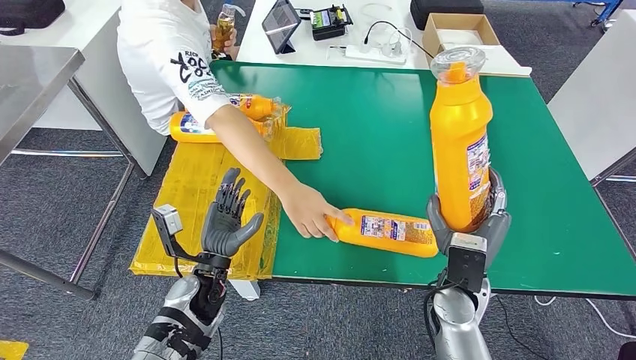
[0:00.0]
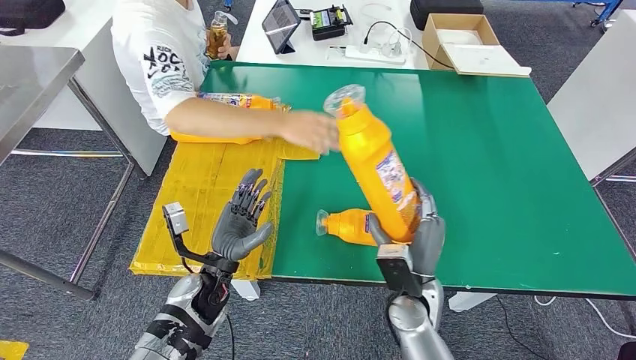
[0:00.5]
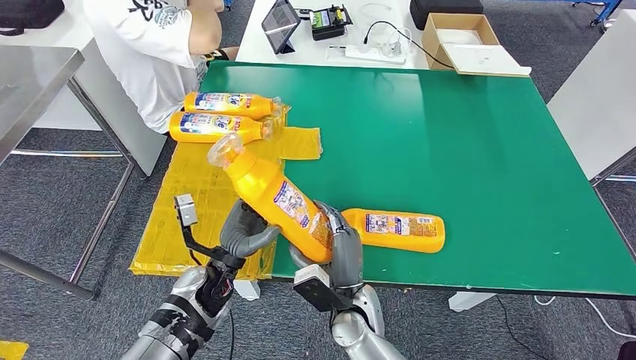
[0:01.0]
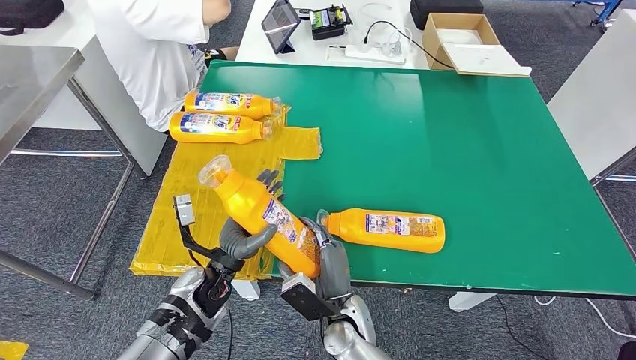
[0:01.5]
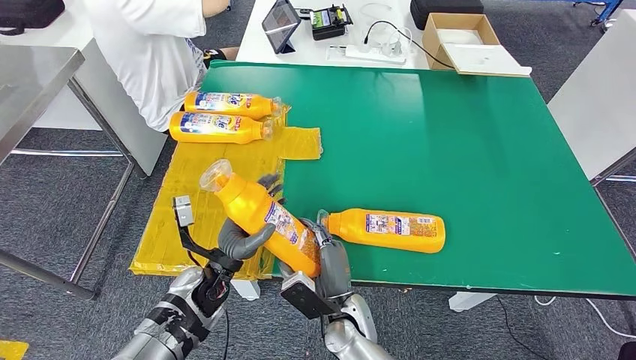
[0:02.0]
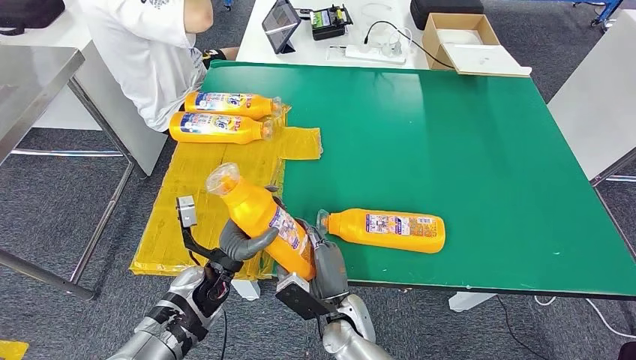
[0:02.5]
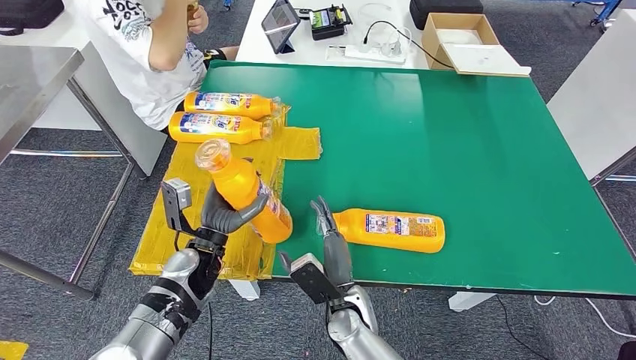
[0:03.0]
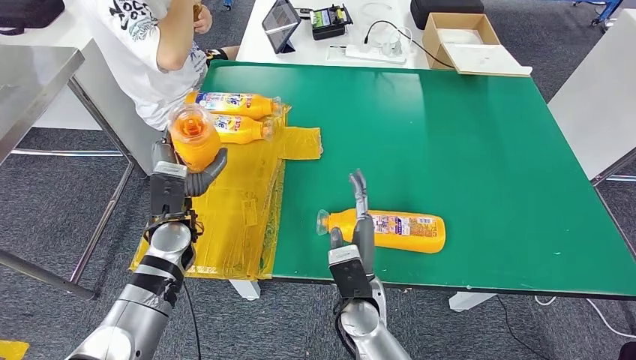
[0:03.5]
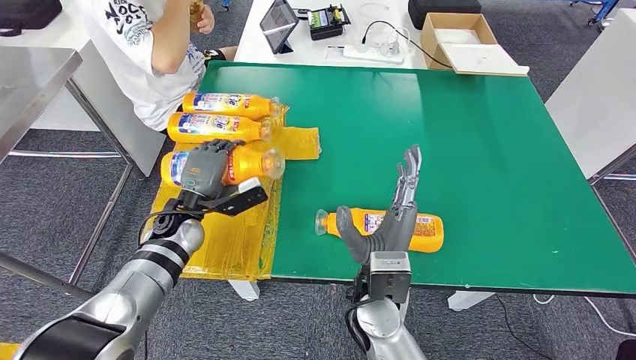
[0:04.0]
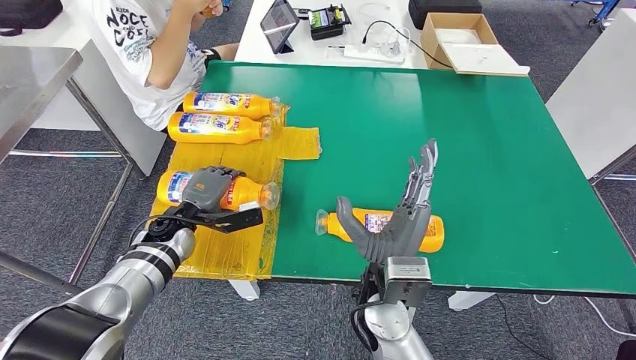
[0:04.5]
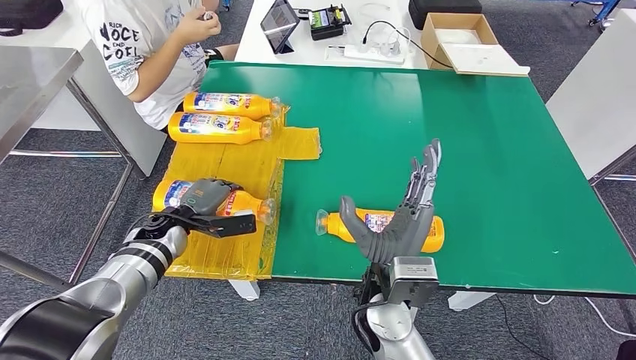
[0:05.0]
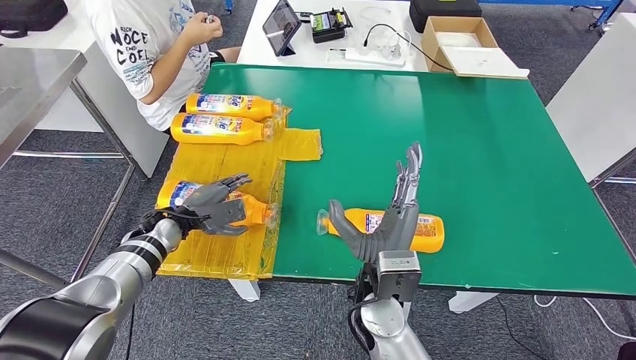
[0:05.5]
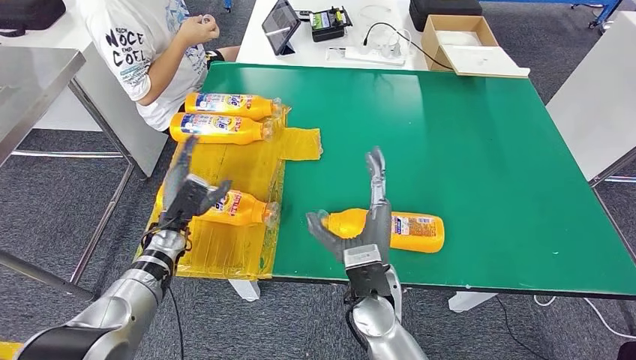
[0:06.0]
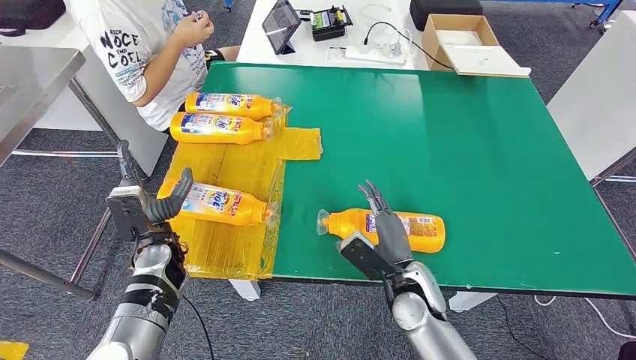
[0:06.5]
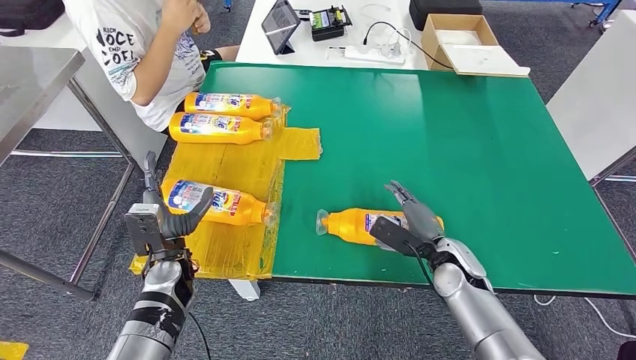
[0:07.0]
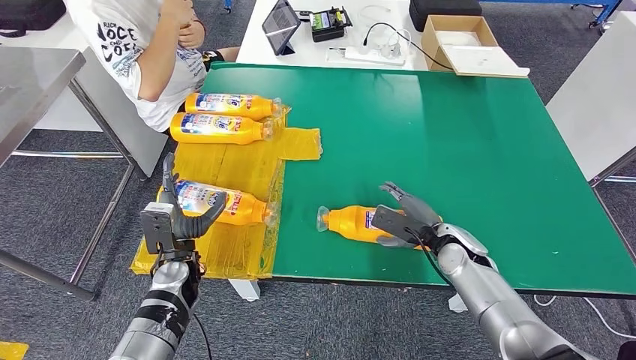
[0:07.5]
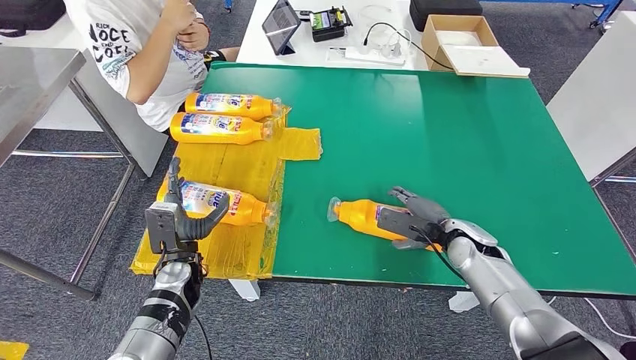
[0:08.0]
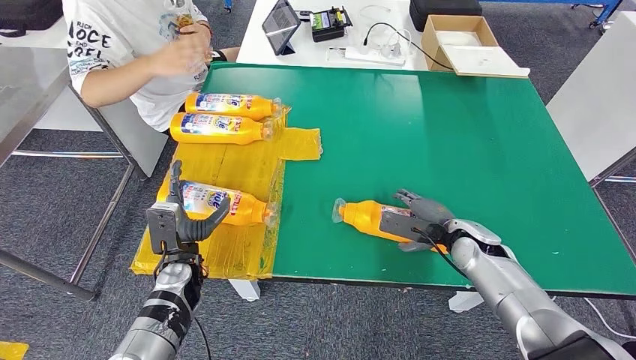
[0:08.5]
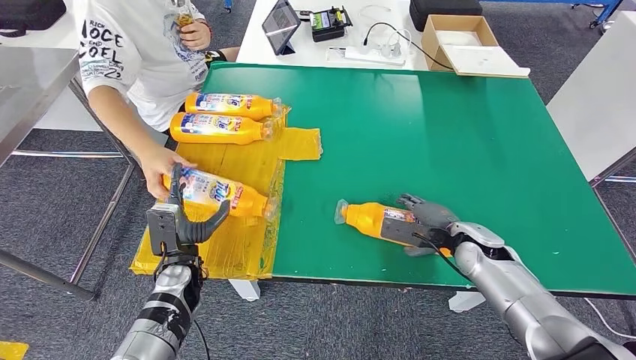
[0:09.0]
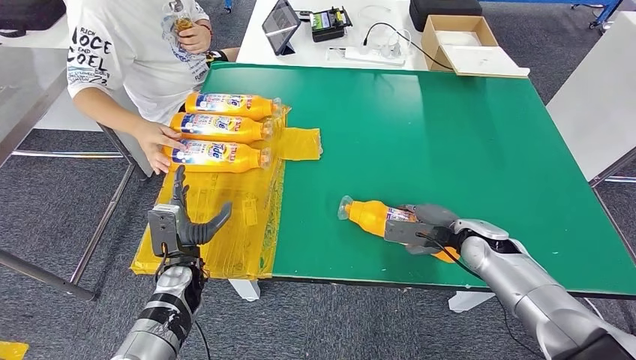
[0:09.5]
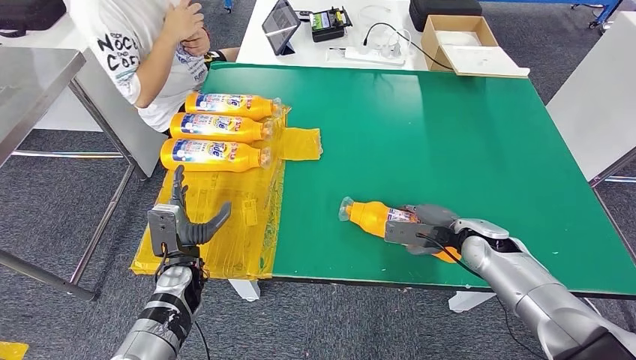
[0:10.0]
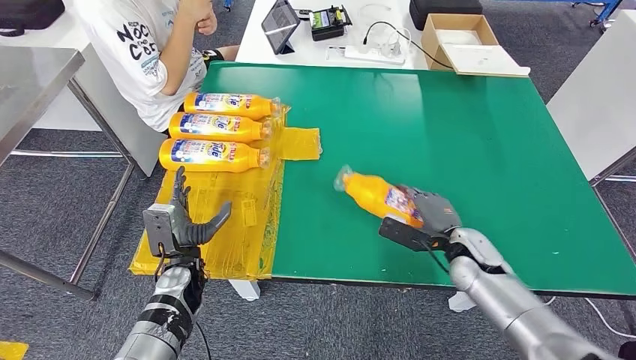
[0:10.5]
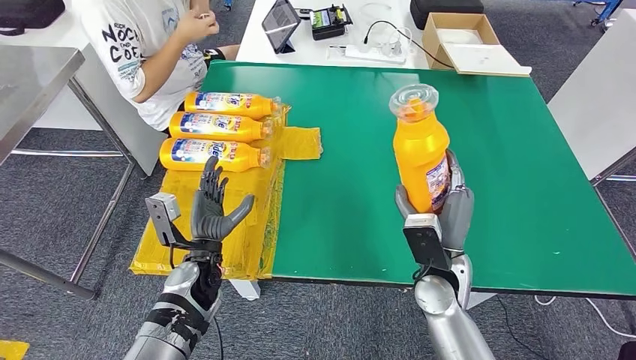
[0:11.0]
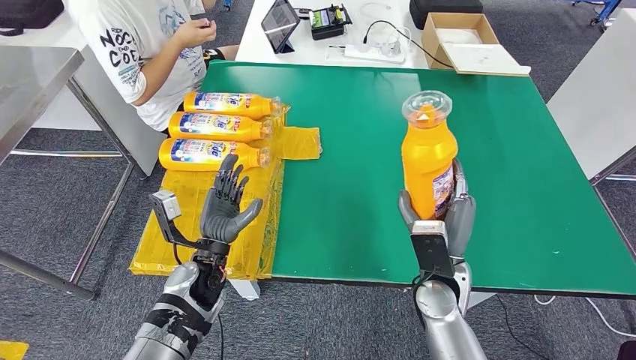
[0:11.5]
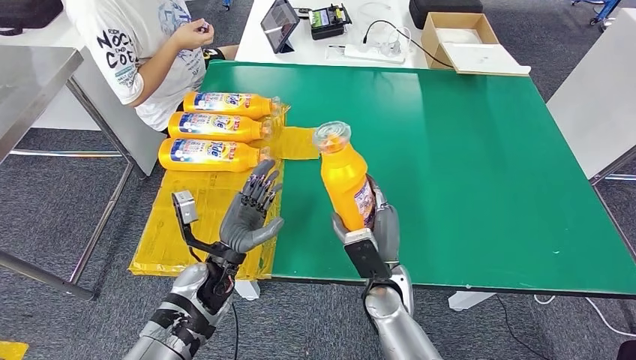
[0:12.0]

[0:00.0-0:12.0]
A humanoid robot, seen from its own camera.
Step, 0:01.0 to 0:05.5: Flip the fast-moving consumer goods bottle to the front side.
Step, 0:06.5 to 0:11.0: Pick up the fast-moving consumer goods bottle from the table.
0:04.0 to 0:06.0: The left hand moves downward, about 5 cm.
0:06.0 to 0:08.0: The right hand heads to the right and forward, covering some 25 cm. The left hand goes about 10 cm backward and to the right.
0:08.0 to 0:10.0: The hands stay close to where they were, moving slightly.

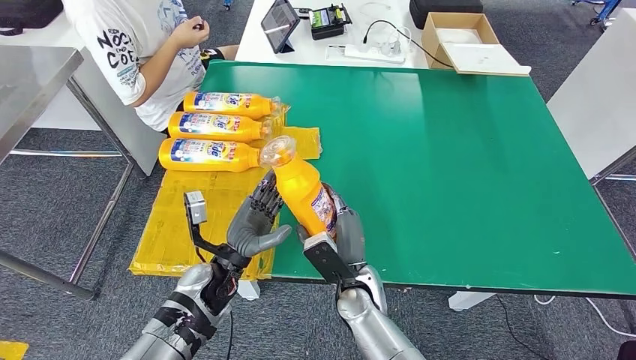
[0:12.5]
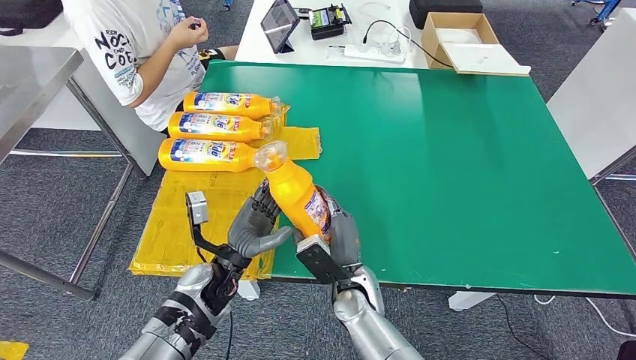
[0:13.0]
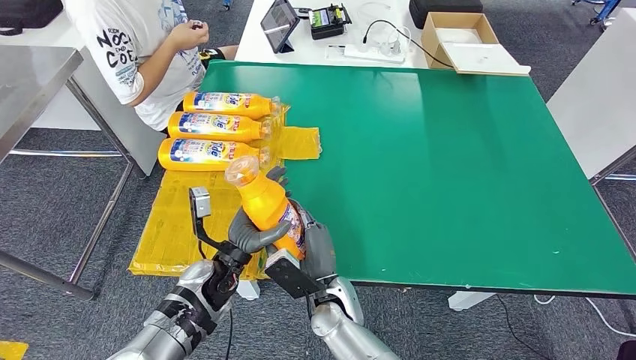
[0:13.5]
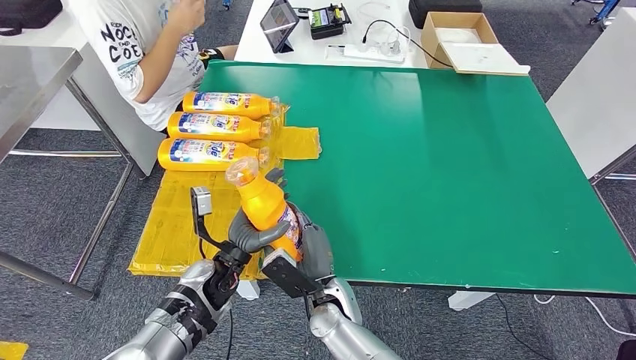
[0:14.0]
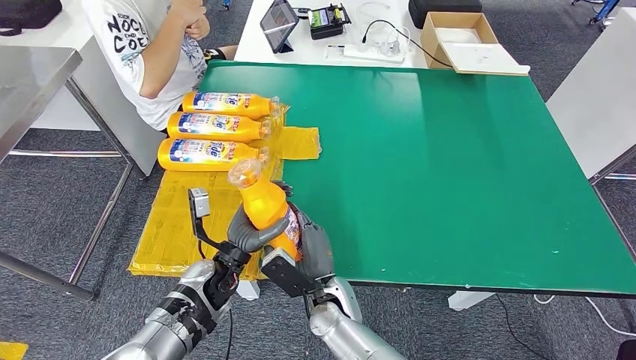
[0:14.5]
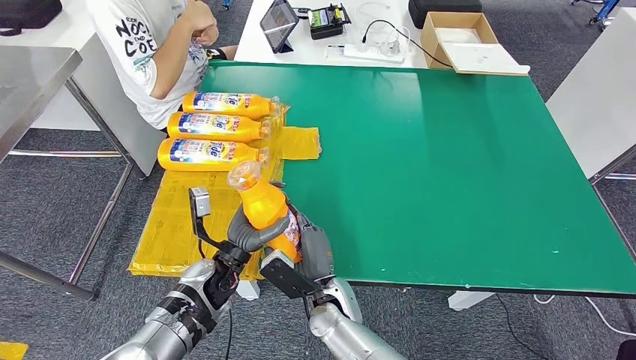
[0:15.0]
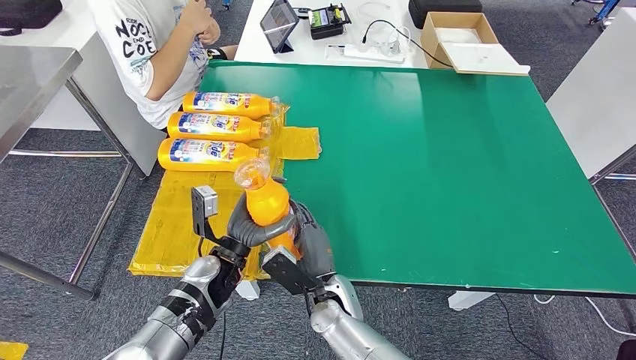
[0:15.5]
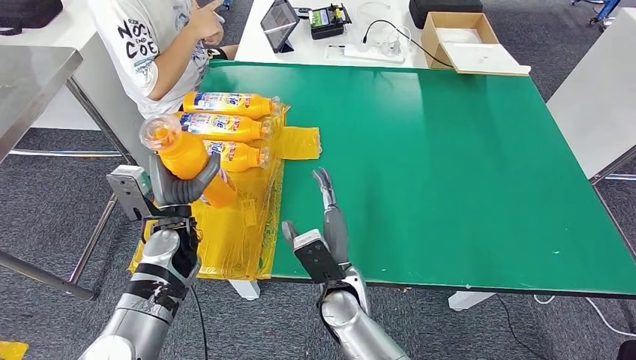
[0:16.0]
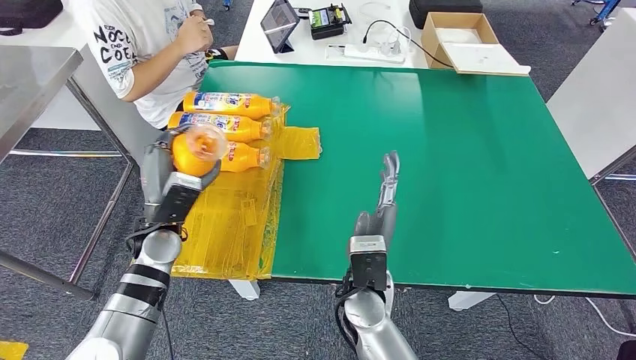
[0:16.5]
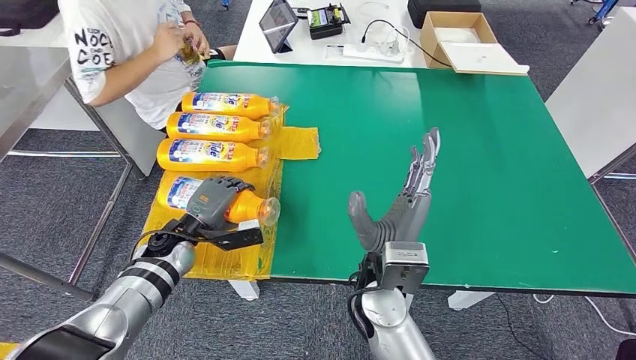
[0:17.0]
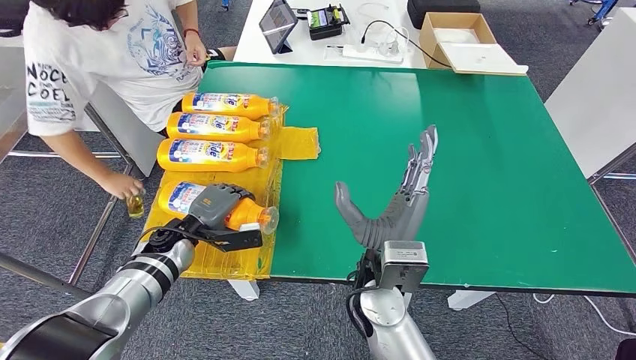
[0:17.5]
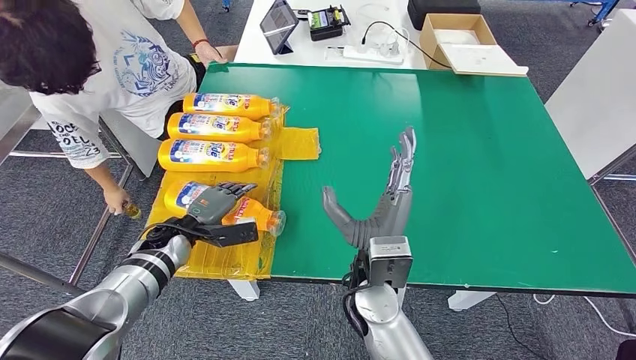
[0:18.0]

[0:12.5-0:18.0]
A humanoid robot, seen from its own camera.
Step, 0:12.5 to 0:18.0: Flip the fast-moving consumer goods bottle to the front side.
0:12.5 to 0:14.5: The right hand heads to the left, covering approximately 5 cm.
0:14.5 to 0:16.0: The left hand moves to the left and upward, some 10 cm.

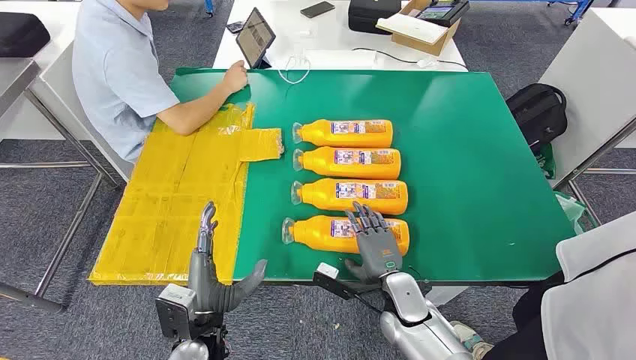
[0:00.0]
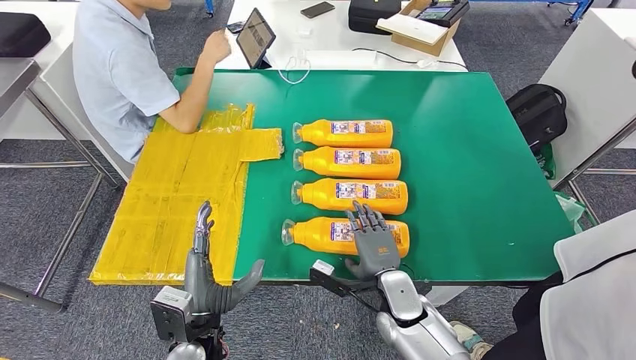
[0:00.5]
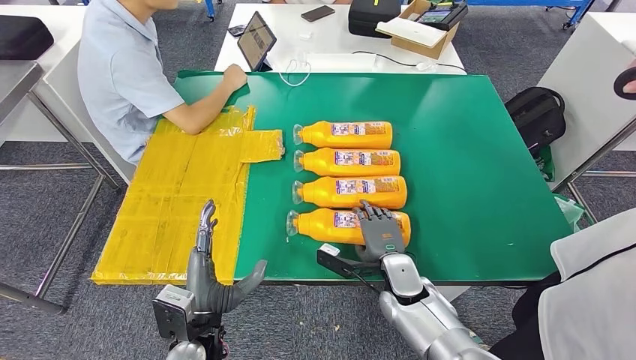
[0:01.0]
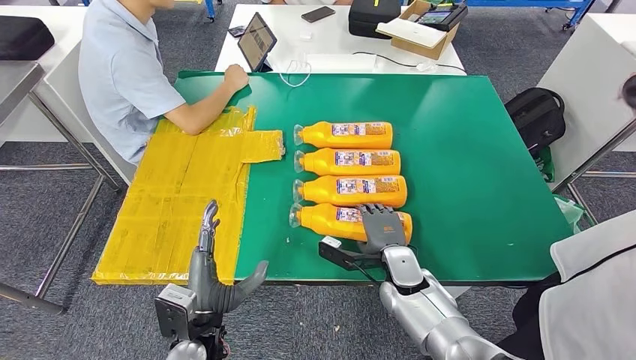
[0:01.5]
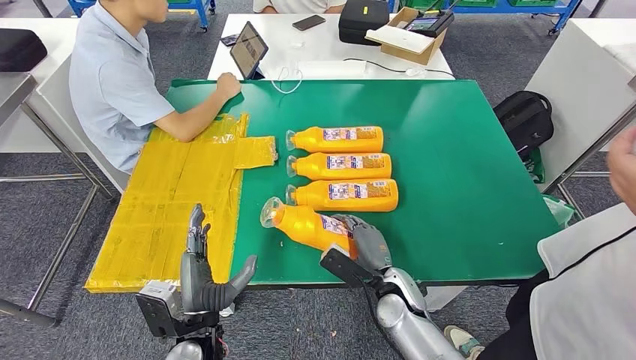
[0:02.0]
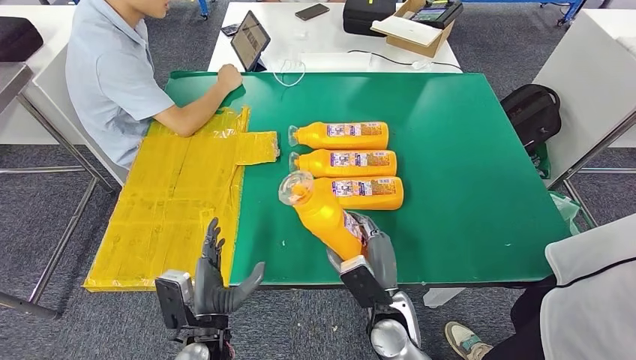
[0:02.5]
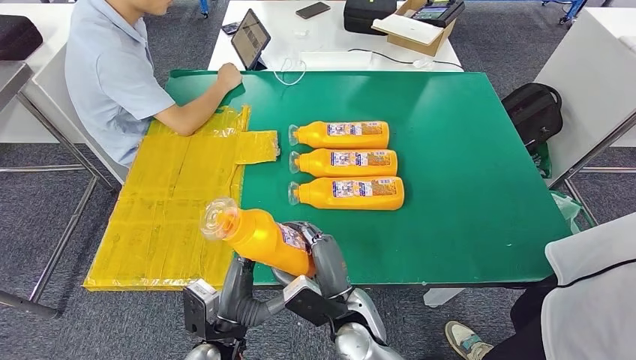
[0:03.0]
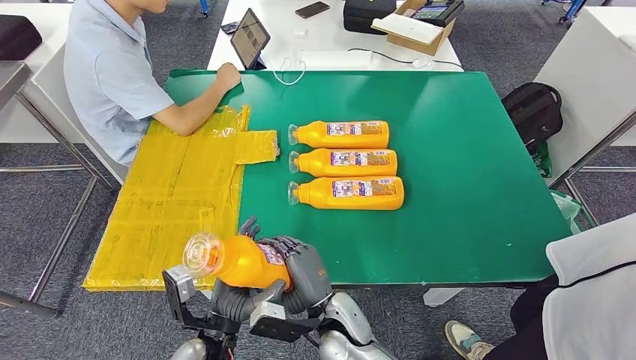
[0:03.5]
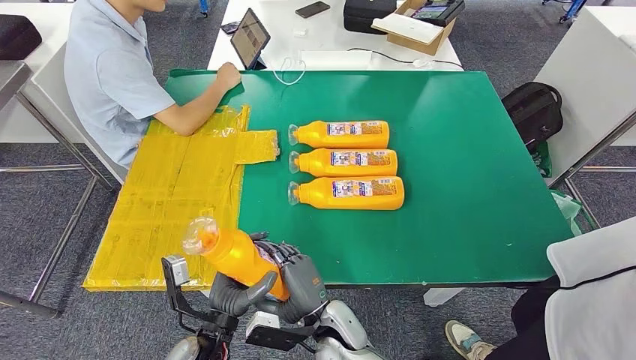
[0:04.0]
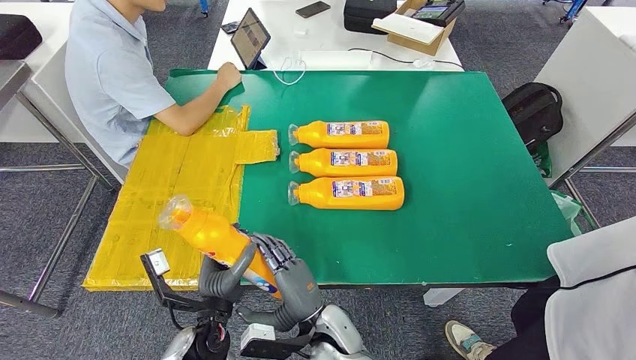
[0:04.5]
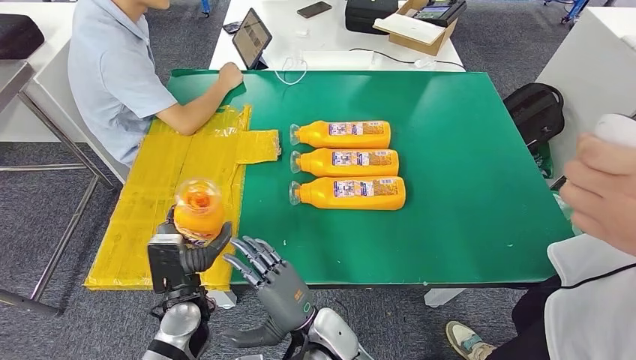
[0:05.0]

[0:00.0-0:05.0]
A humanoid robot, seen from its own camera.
Step, 0:00.0 to 0:02.5: Take the fast-moving consumer goods bottle from the table.
